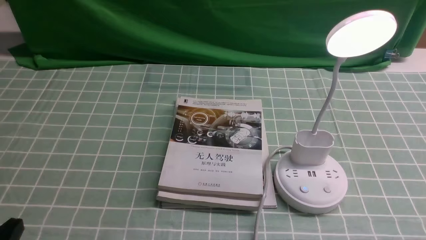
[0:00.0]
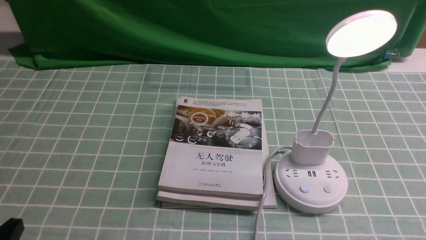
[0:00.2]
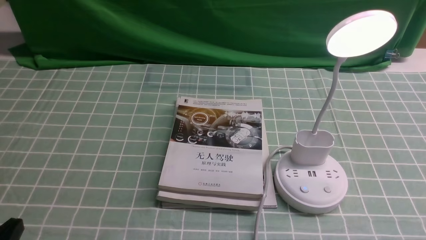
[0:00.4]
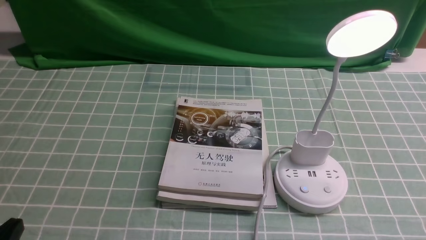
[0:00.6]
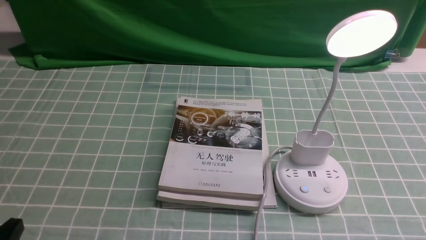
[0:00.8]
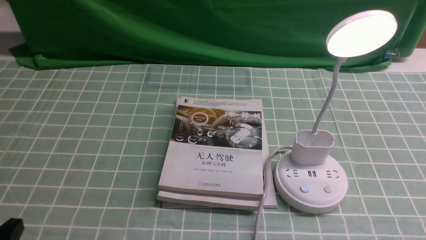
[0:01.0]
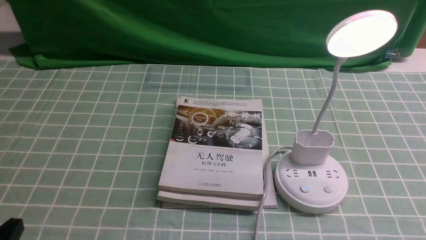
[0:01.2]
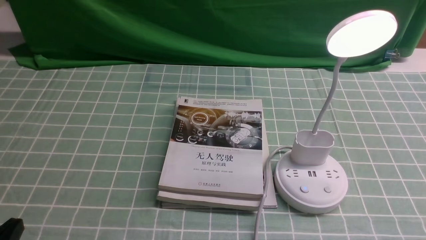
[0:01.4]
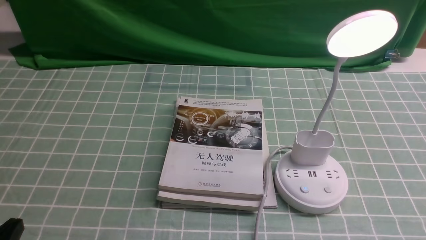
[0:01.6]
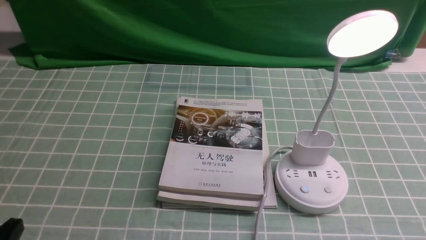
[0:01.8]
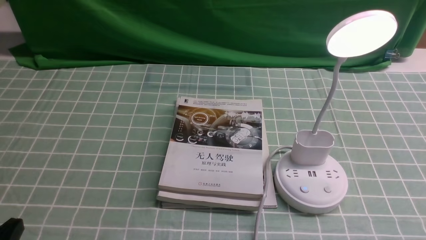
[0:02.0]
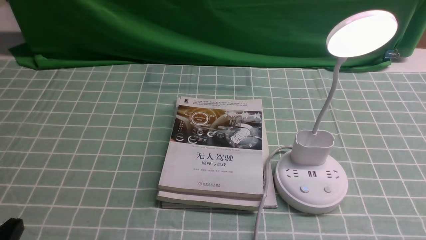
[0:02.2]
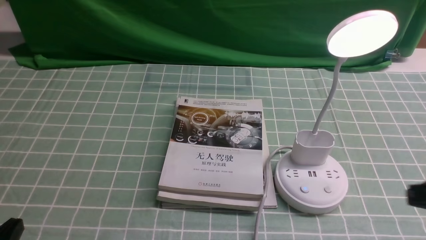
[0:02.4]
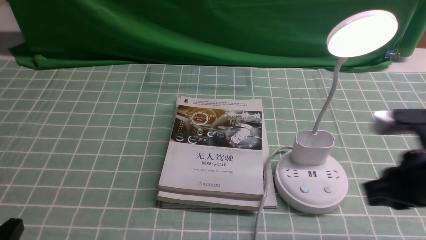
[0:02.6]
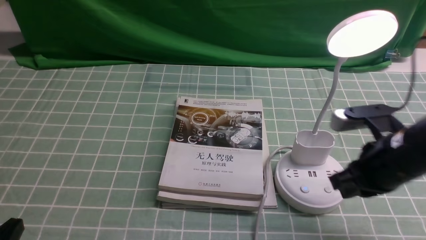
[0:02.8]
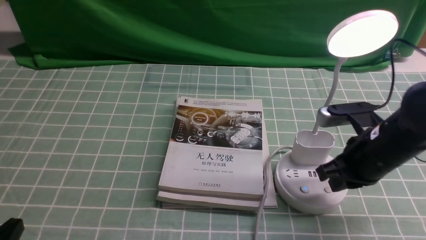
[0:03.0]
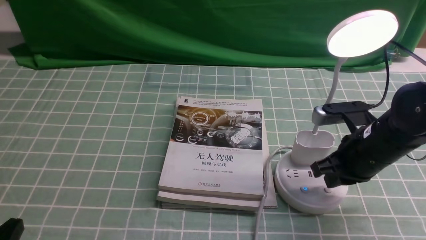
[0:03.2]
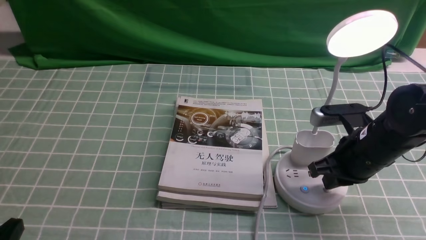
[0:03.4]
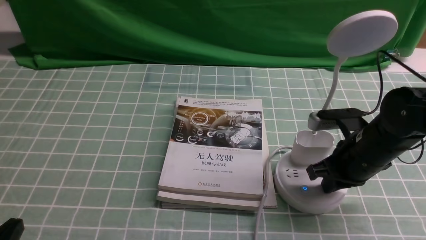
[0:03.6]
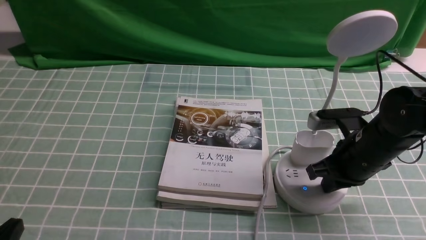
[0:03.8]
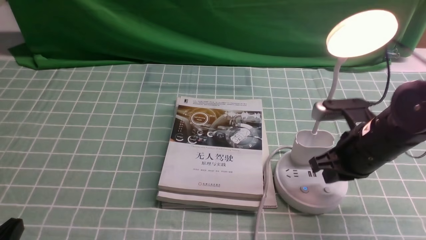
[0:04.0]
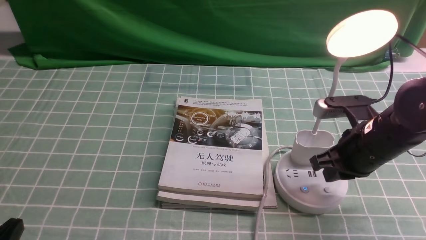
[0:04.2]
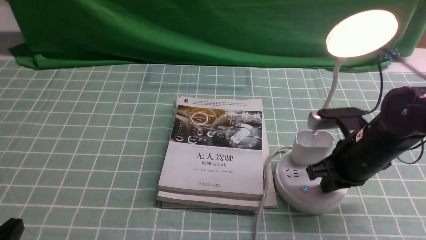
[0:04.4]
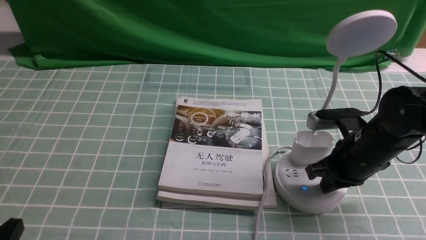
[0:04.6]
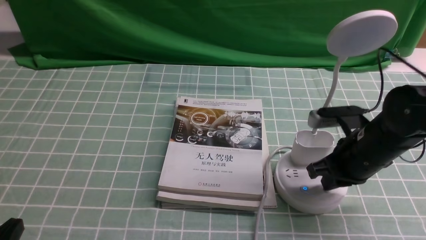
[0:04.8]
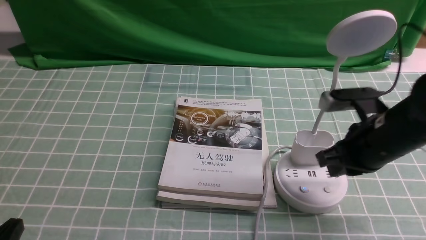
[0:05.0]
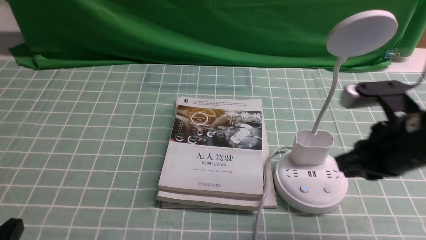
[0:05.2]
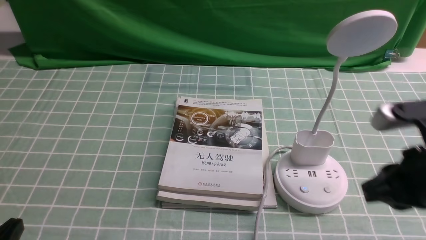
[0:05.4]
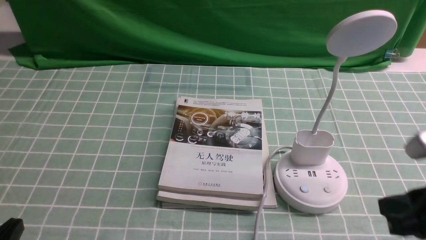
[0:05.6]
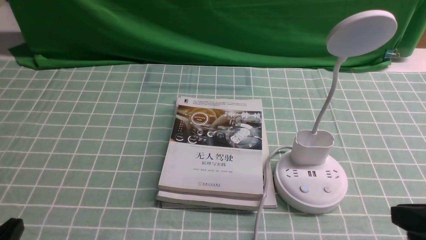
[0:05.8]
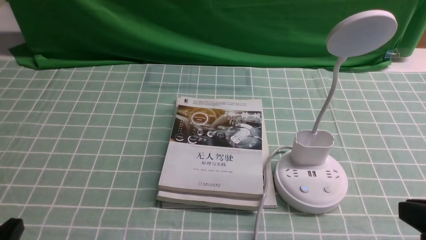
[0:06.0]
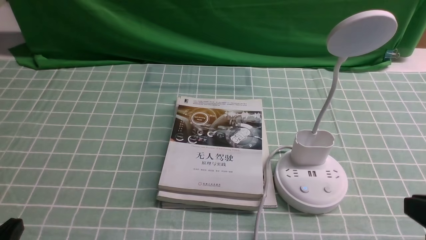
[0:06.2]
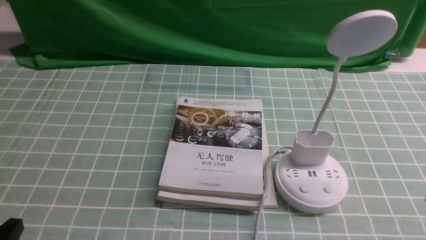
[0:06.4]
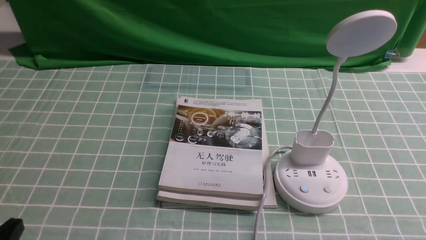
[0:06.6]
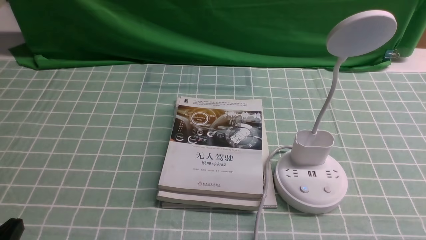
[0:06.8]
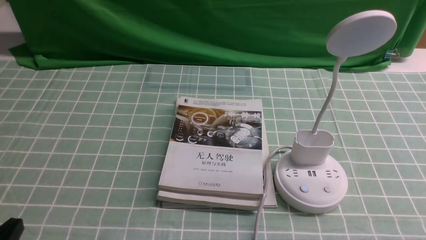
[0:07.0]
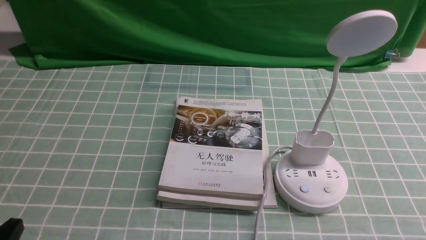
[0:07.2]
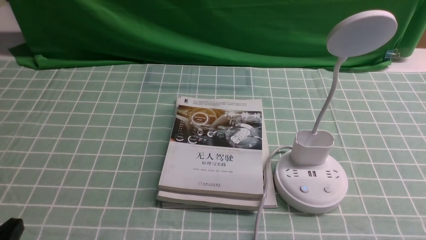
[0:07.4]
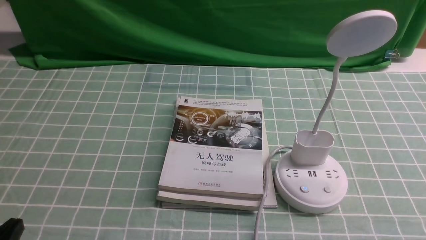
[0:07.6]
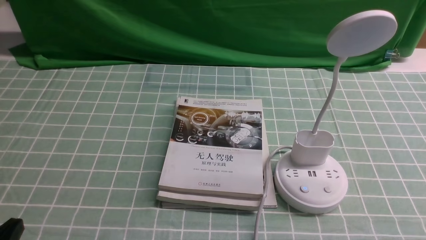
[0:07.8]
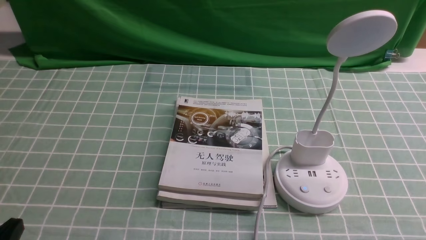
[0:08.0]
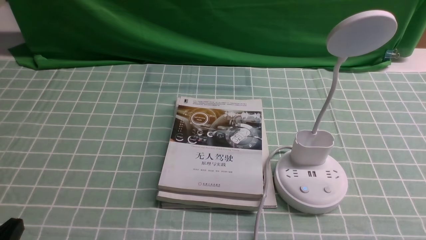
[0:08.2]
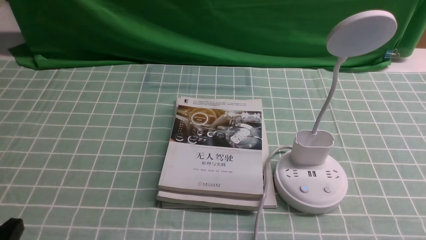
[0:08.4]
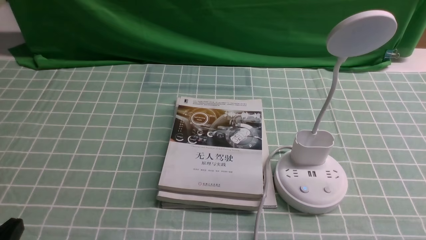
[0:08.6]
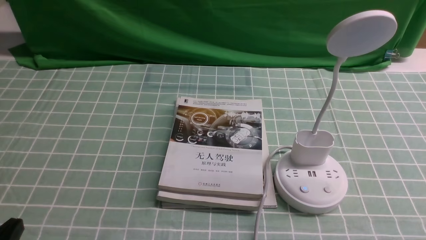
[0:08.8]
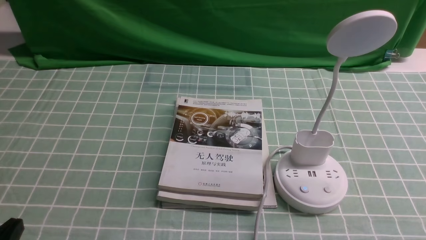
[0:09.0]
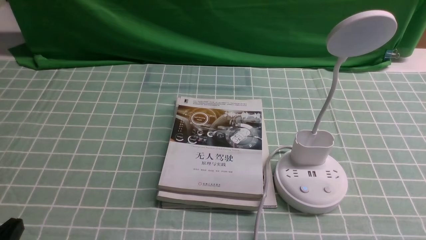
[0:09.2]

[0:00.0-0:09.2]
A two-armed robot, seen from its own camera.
Task of the whole recording: turn off the desk lamp on the blue coffee tablecloth by hand.
Step, 0:00.0 to 0:05.0: use the right arm to press the button switch on the lamp holder.
0:01.6 to 0:03.0: The right gripper shifts some 25 cm forward and to the left, and closes up.
0:03.0 to 0:04.6: There are only small adjustments of the grippers.
0:04.6 to 0:06.2: The right gripper travels backward and upward by about 20 cm.
